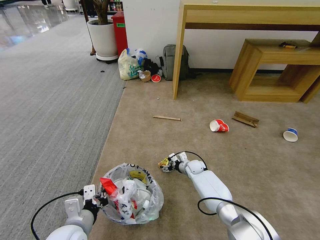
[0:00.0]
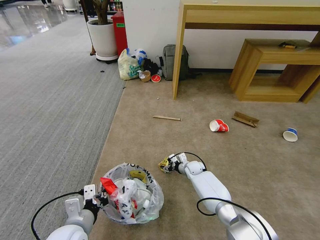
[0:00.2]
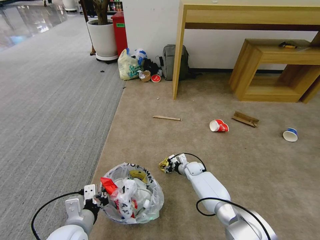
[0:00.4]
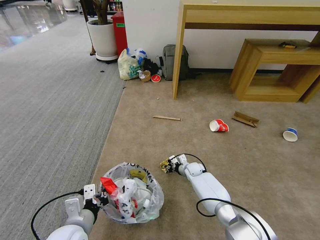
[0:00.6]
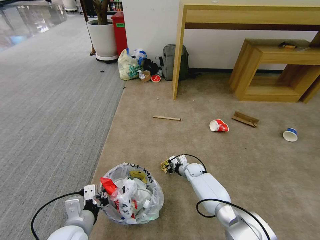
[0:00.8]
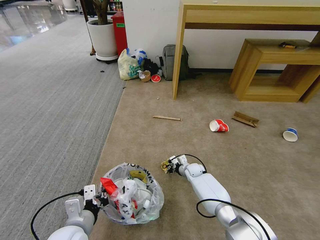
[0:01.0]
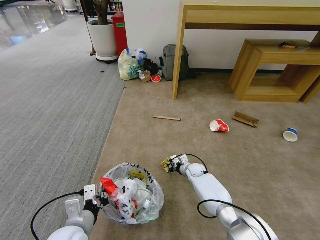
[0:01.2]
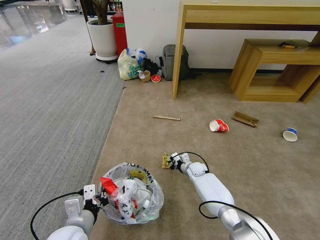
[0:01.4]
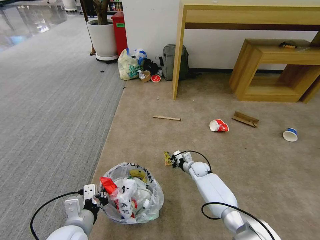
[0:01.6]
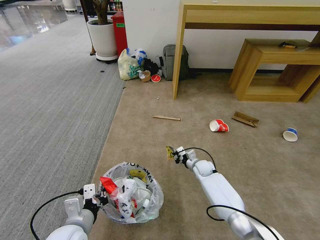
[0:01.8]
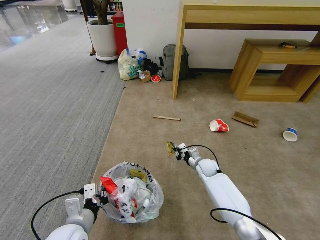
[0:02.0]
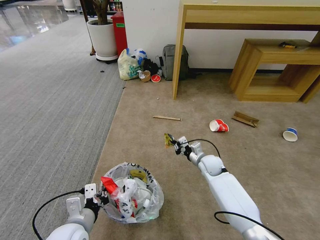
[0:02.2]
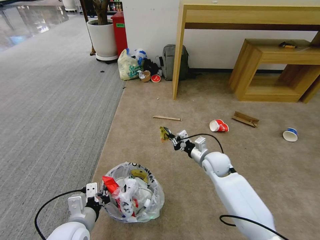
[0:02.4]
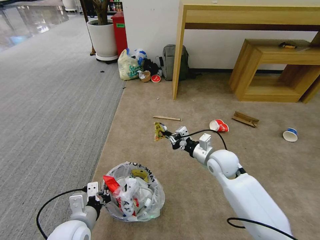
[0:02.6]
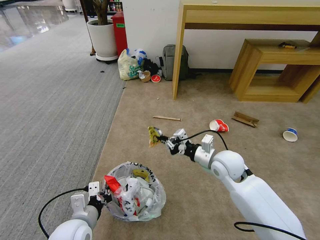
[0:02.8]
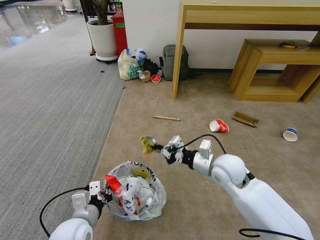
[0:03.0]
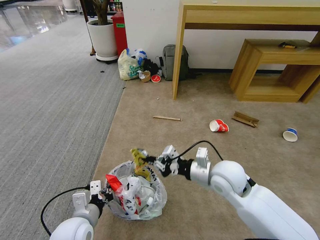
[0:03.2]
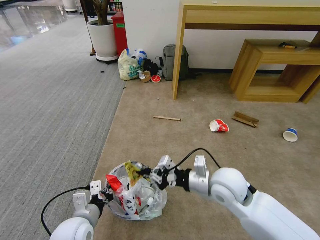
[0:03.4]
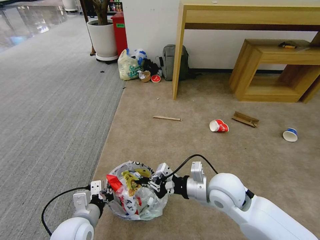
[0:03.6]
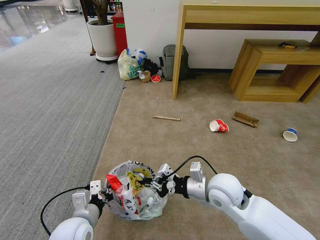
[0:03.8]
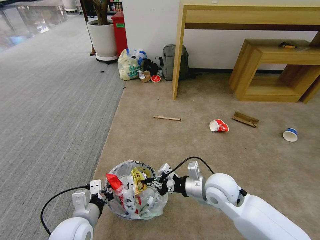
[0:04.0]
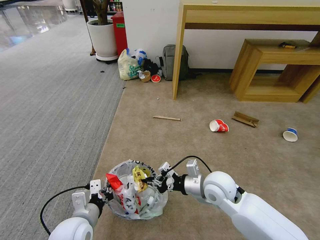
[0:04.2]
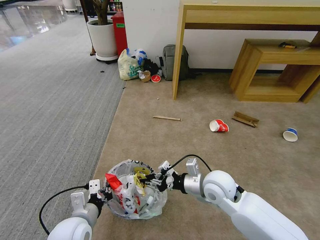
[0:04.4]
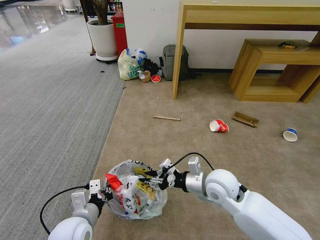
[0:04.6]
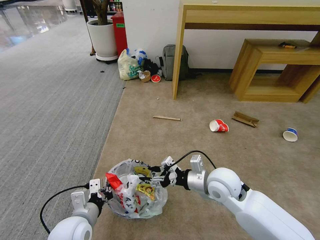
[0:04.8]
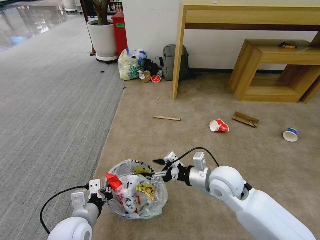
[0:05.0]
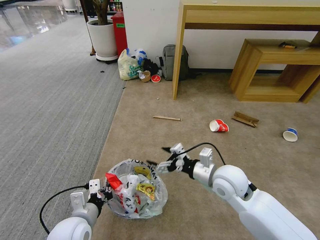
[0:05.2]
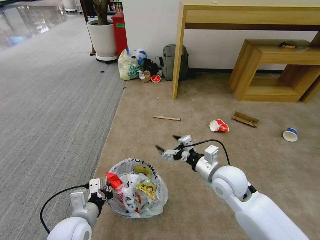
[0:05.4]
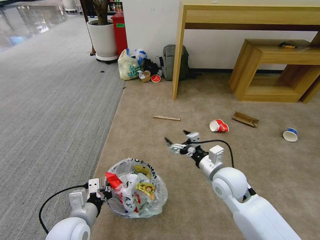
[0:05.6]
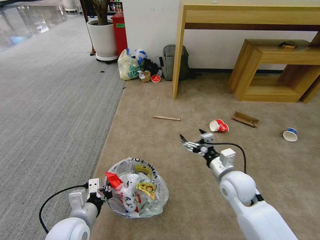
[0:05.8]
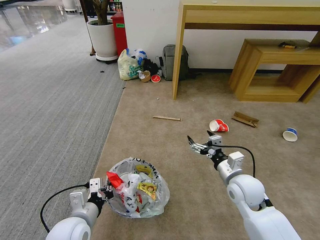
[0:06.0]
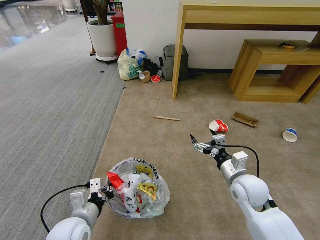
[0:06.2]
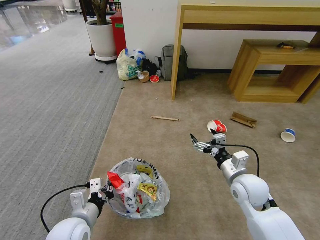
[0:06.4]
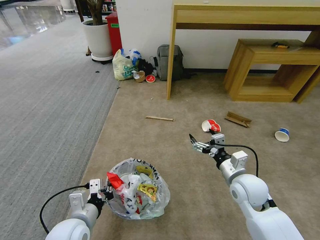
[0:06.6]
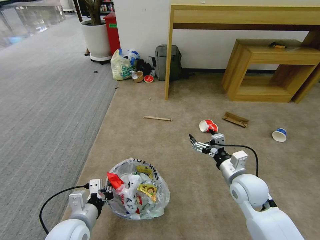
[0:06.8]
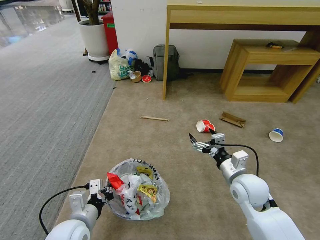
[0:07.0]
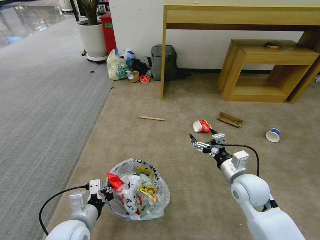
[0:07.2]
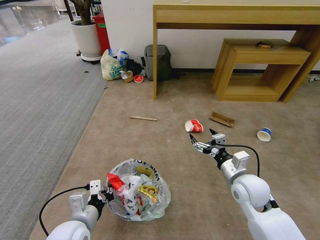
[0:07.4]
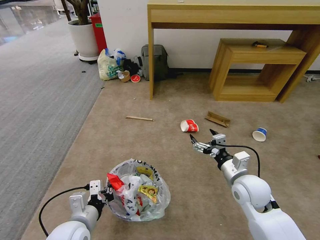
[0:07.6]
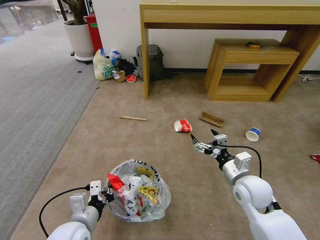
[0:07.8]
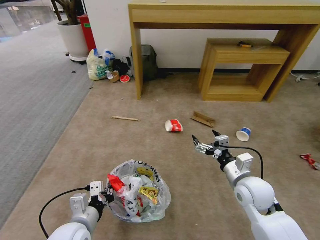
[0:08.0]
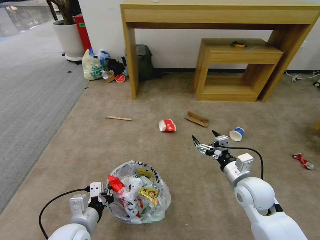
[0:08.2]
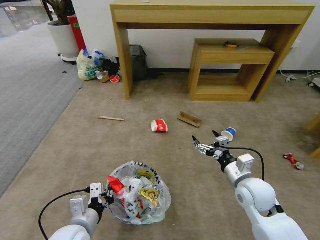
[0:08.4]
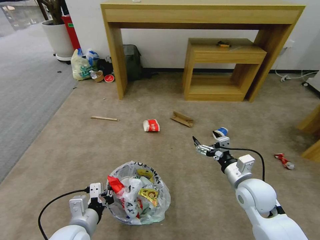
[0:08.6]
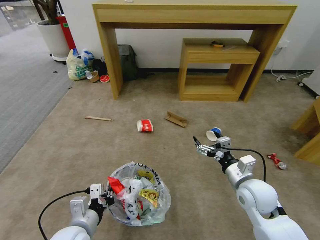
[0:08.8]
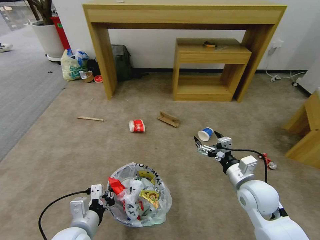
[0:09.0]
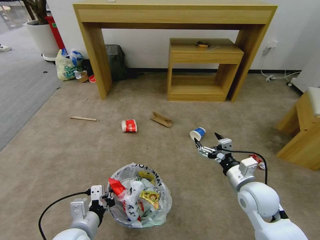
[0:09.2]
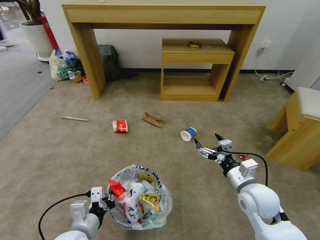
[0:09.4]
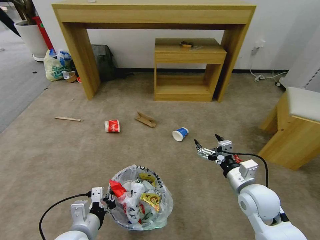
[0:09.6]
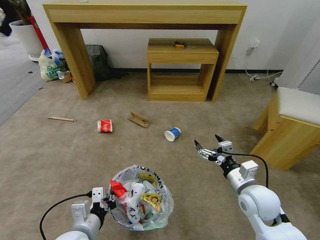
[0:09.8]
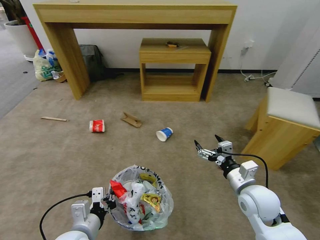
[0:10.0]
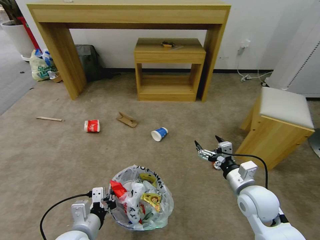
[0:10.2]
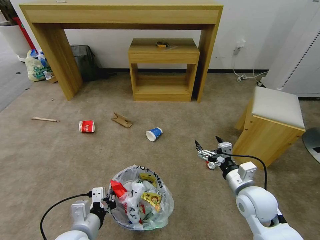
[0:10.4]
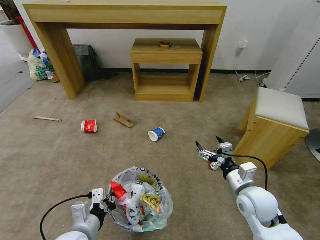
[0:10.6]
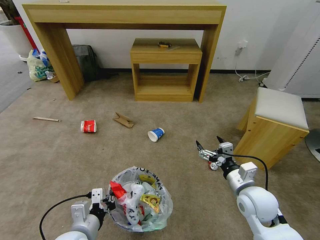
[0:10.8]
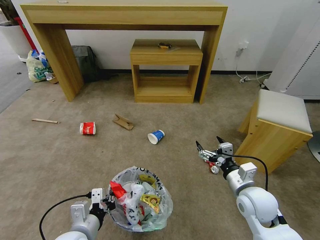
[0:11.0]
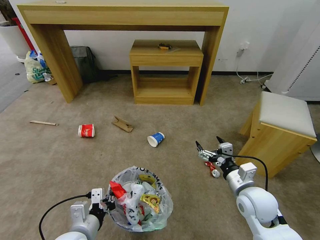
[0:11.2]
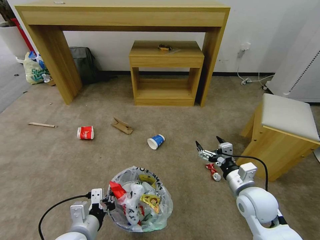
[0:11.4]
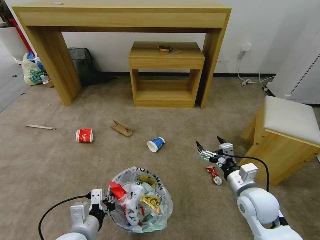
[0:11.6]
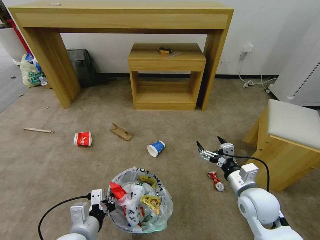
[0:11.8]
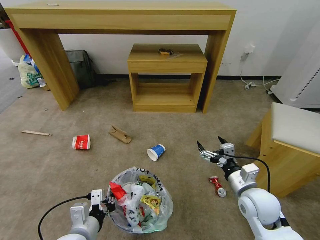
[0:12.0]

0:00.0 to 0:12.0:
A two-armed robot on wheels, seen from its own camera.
Task of the whole recording: Pick up the trash bin and place the garbage on the floor into it.
0:00.0 to 0:01.6: The right gripper closes.
0:01.6 to 0:03.0: The right gripper travels upward and backward by roughly 30 cm.
0:03.0 to 0:04.4: The right gripper ends up approximately 5 cm from where it was.
0:04.4 to 0:06.0: The right gripper moves to the right, roughly 10 cm, and opens up.

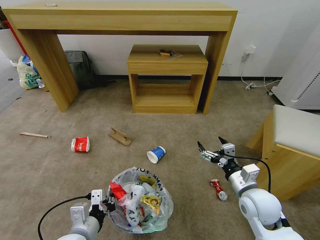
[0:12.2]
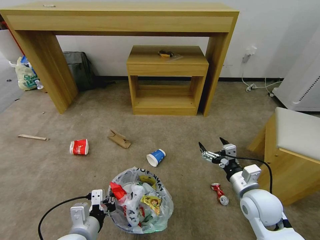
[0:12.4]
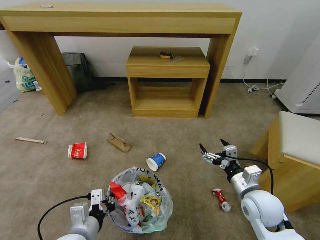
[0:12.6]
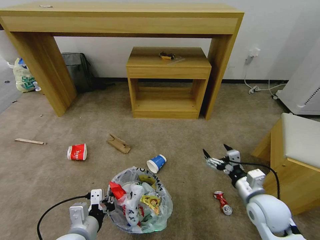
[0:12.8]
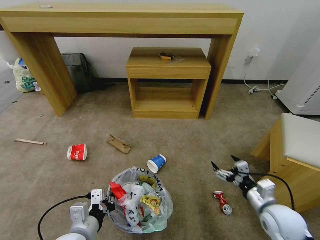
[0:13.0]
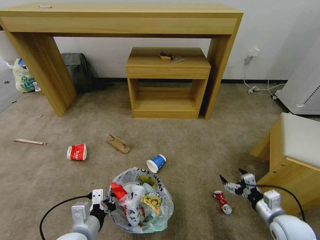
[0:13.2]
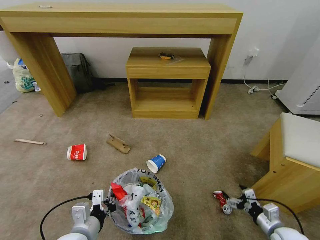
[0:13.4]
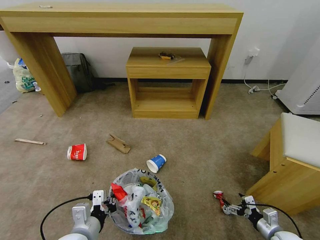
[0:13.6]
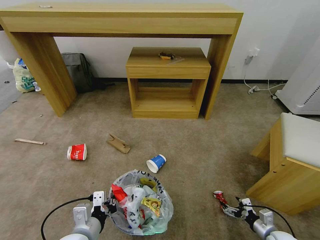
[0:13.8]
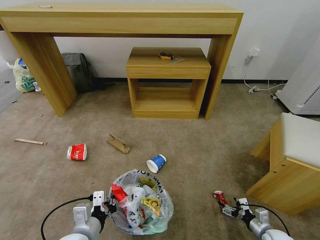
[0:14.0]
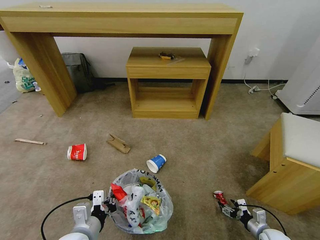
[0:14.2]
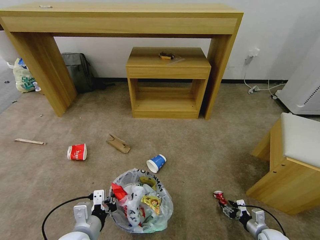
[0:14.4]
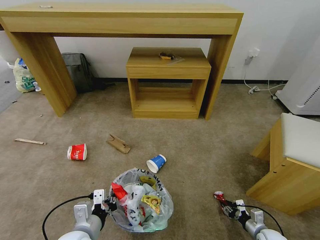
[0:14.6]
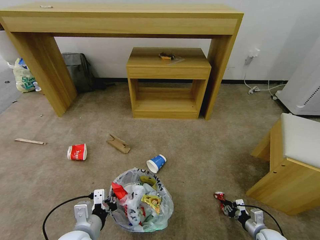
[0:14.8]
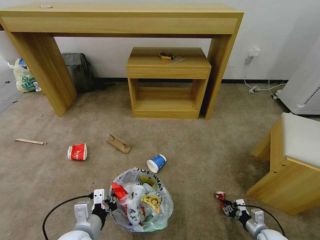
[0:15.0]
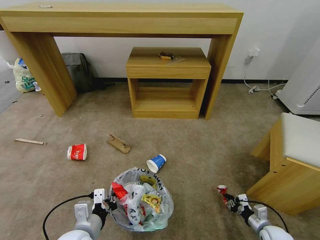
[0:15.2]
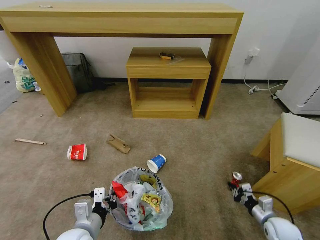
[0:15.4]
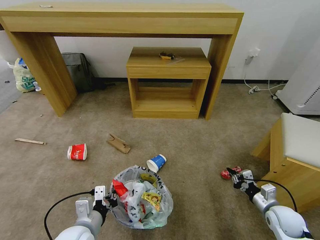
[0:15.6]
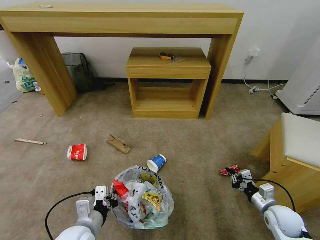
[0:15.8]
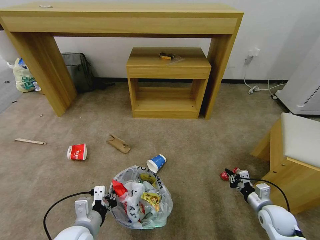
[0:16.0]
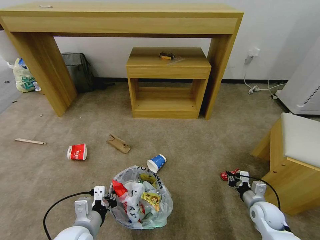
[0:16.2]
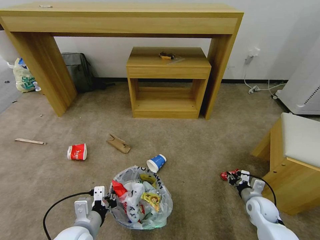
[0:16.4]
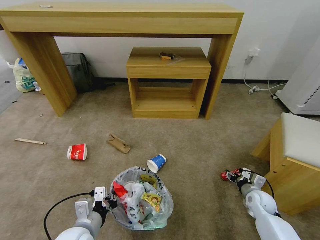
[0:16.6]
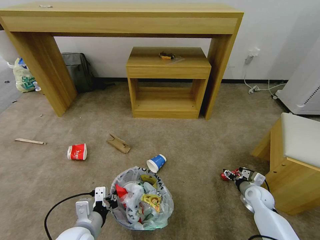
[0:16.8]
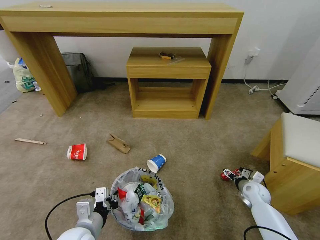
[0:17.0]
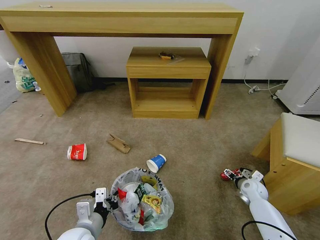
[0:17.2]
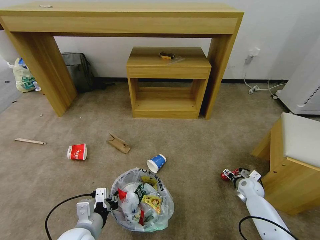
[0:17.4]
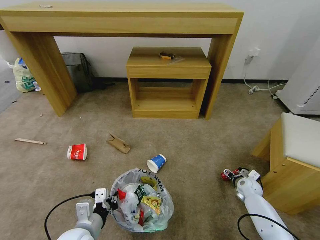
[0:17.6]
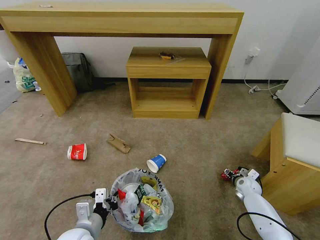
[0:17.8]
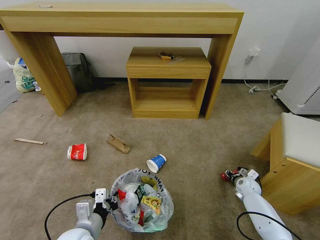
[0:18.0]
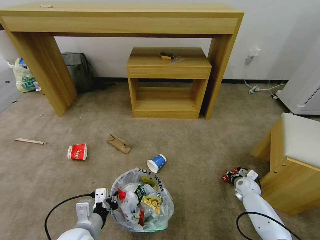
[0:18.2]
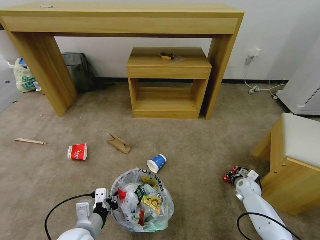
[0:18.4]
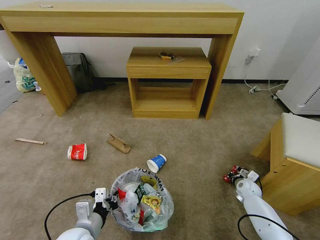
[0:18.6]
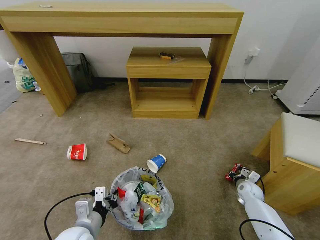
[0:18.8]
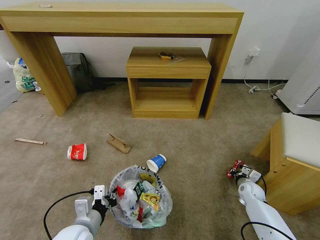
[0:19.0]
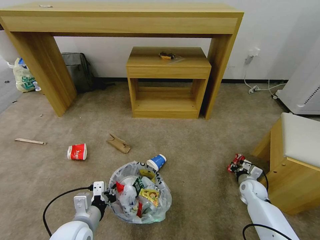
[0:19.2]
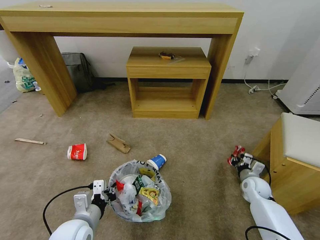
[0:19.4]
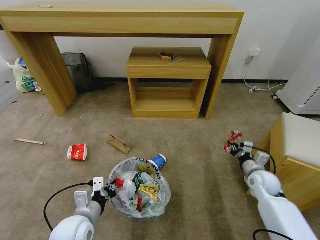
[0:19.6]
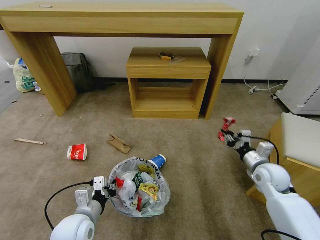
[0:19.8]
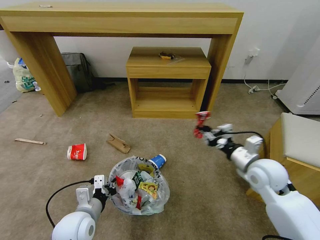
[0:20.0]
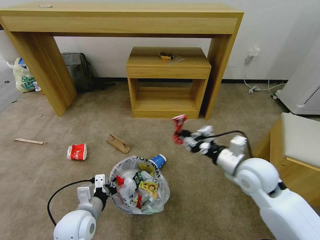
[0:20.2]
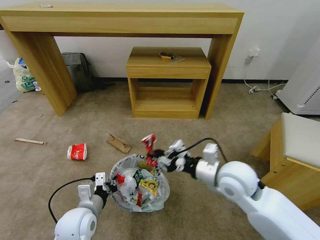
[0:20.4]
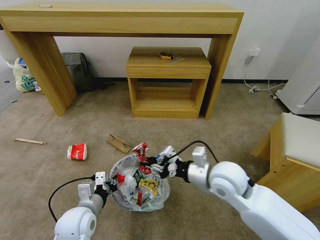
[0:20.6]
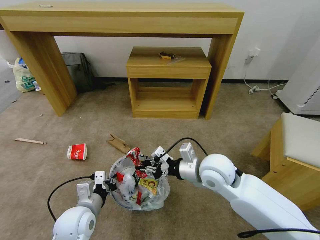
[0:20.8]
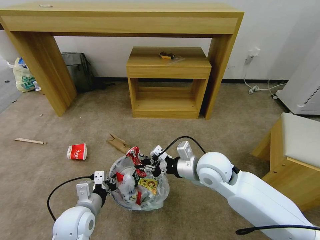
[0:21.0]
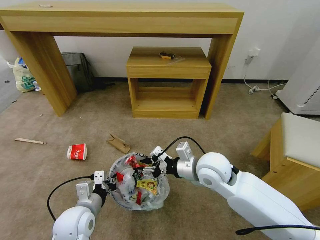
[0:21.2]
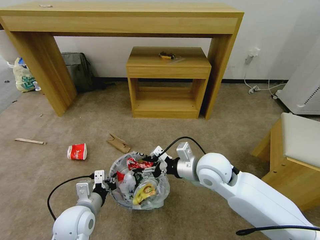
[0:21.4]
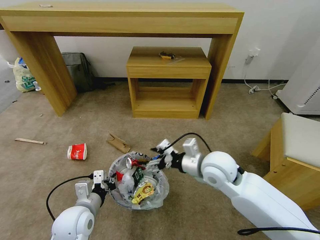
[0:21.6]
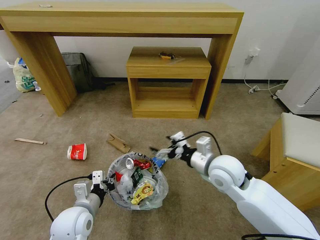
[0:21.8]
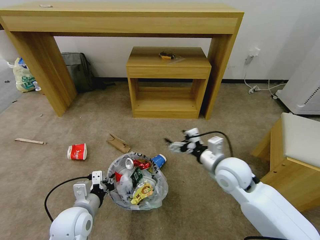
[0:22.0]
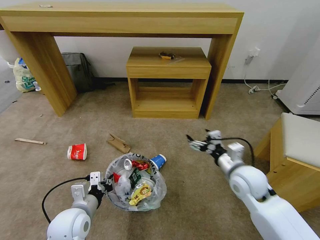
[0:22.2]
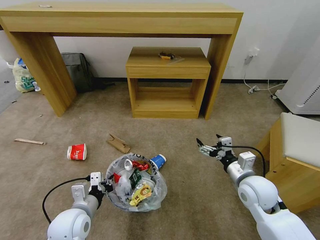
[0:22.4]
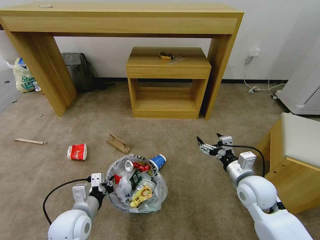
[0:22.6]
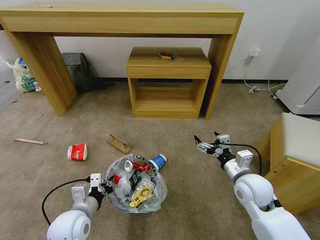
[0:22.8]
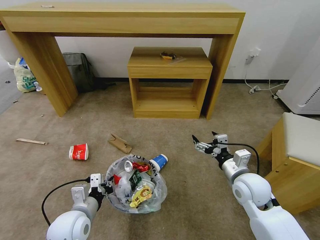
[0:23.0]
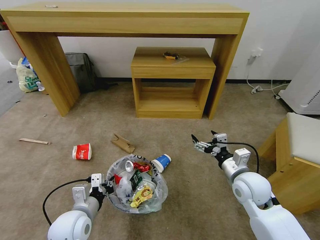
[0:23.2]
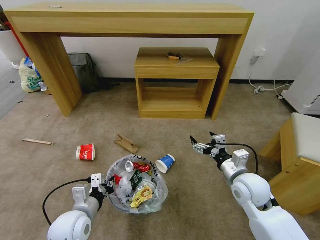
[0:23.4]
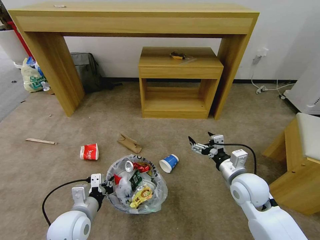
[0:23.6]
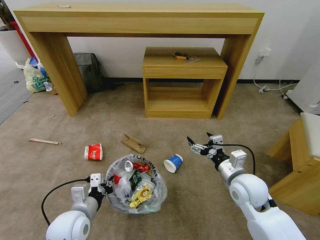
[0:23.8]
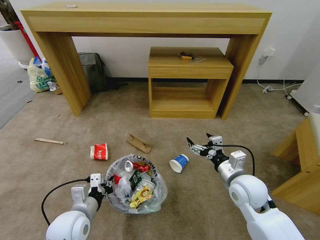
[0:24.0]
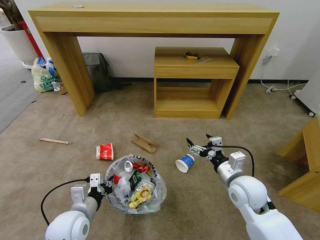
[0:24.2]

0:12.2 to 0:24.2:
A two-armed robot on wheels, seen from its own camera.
Task of the whole recording: Pick up the trash bin and place the garbage on the floor into it.
0:12.2 to 0:13.8: The right gripper goes approximately 25 cm downward and to the right.
0:13.8 to 0:15.2: The right gripper closes its fingers.
0:15.2 to 0:16.6: The right gripper moves forward, about 10 cm, and opens its fingers.
0:16.6 to 0:18.2: The right gripper travels forward by approximately 10 cm, and opens, then closes again.
0:18.2 to 0:19.8: The right gripper heads upward, covering approximately 20 cm.
0:19.8 to 0:21.2: The right gripper moves to the left, approximately 20 cm.
0:21.2 to 0:22.6: The right gripper is displaced to the right and downward by approximately 15 cm, and opens.
